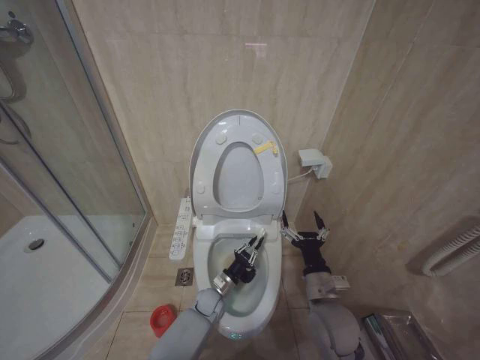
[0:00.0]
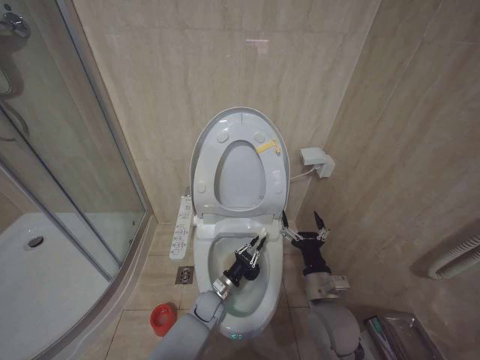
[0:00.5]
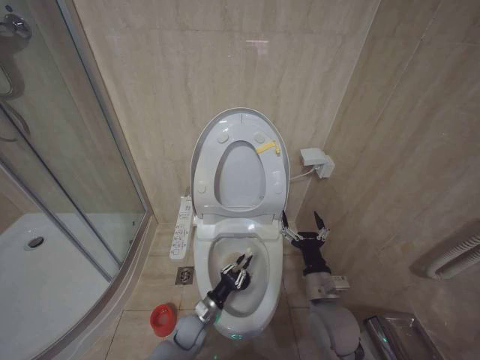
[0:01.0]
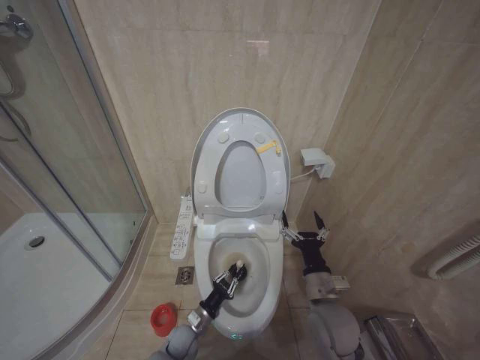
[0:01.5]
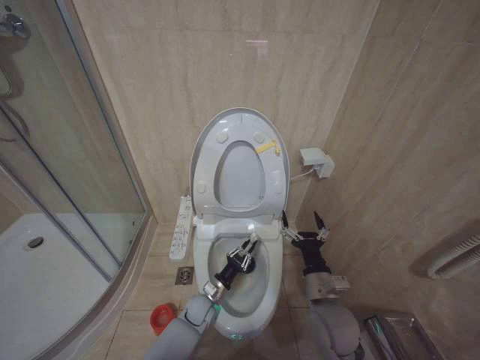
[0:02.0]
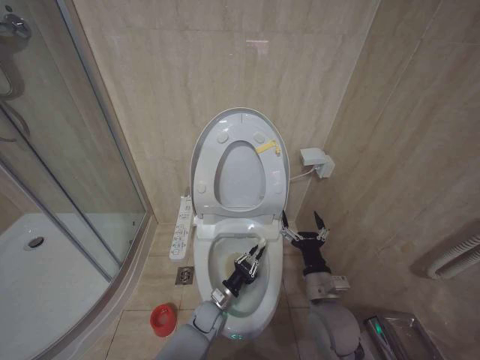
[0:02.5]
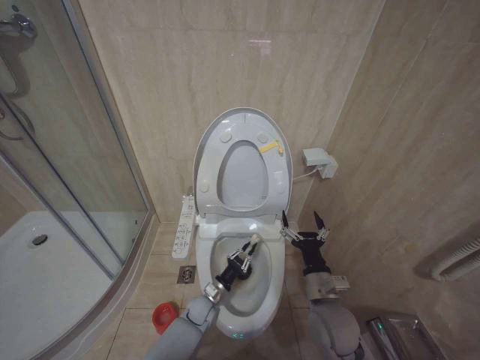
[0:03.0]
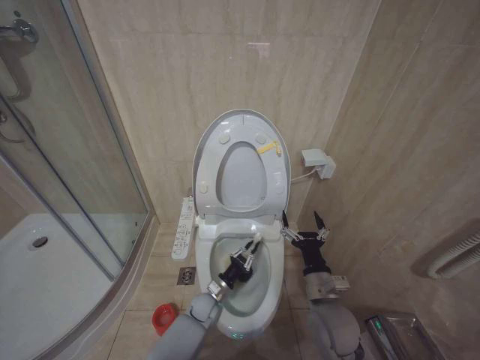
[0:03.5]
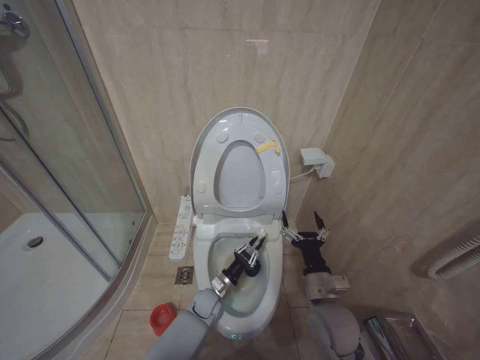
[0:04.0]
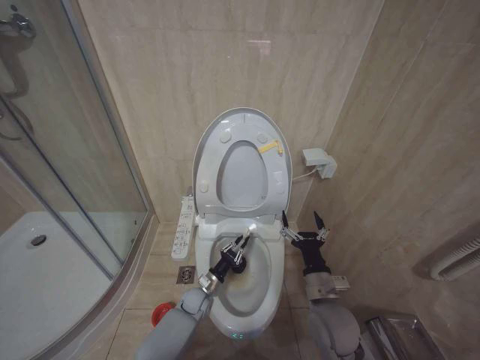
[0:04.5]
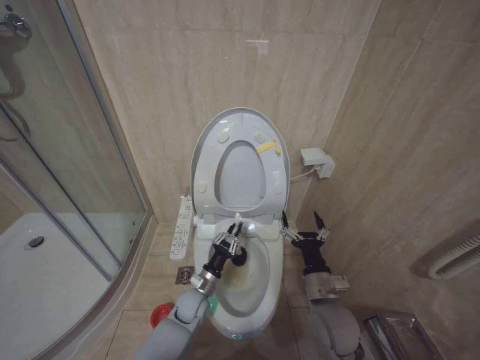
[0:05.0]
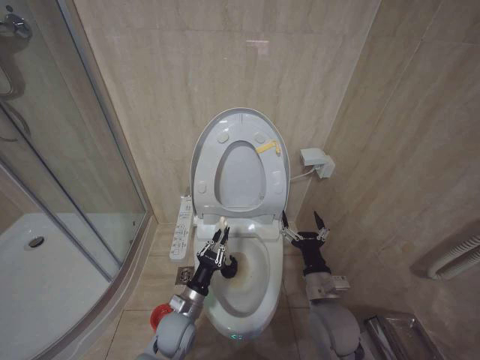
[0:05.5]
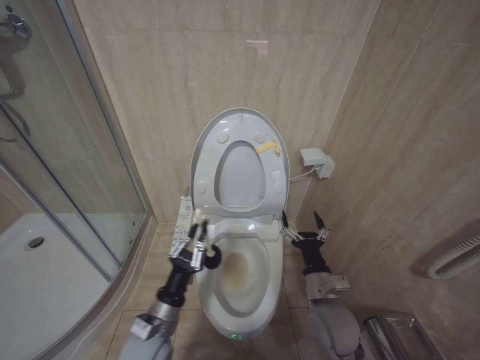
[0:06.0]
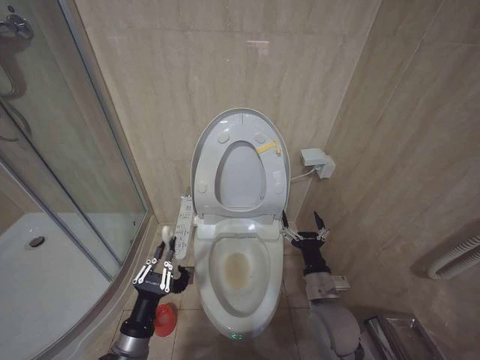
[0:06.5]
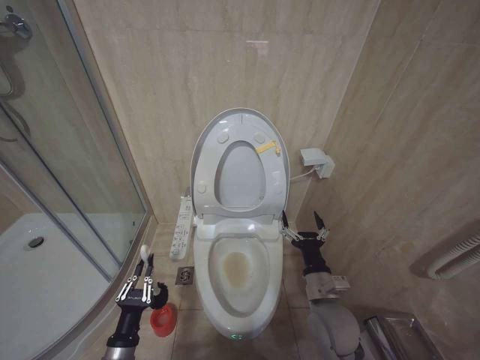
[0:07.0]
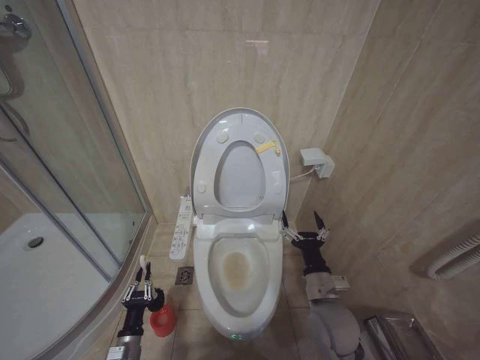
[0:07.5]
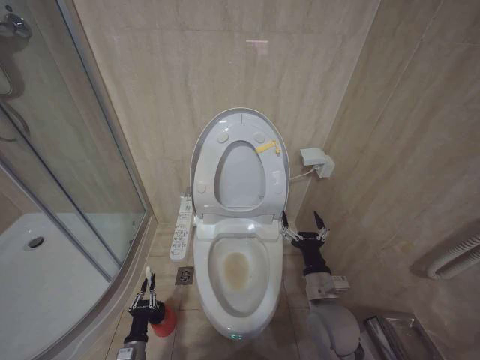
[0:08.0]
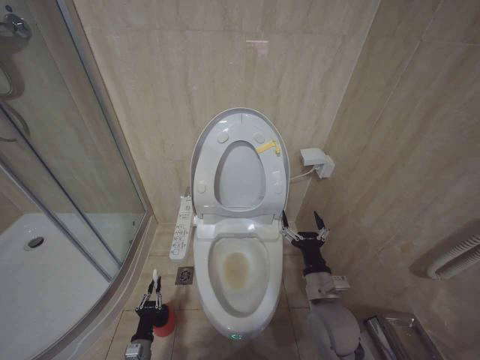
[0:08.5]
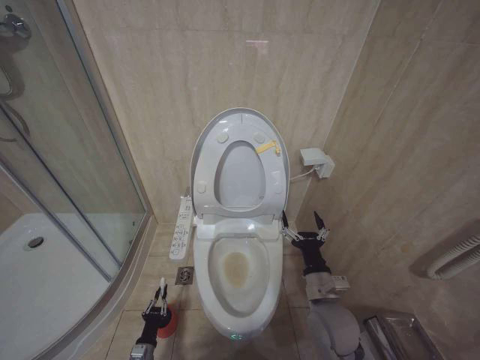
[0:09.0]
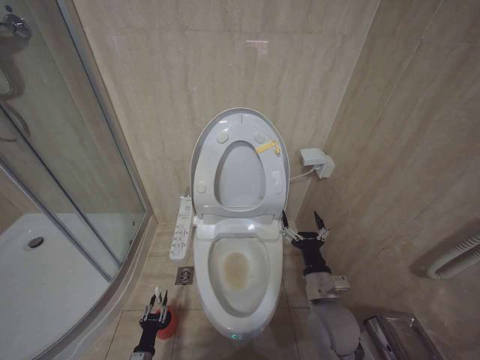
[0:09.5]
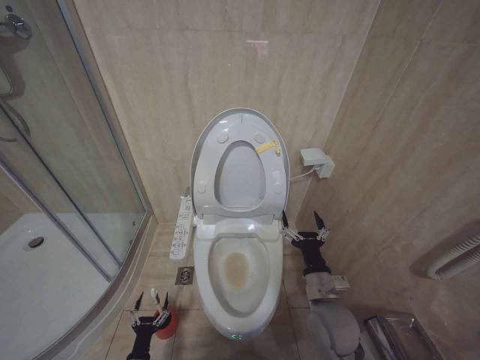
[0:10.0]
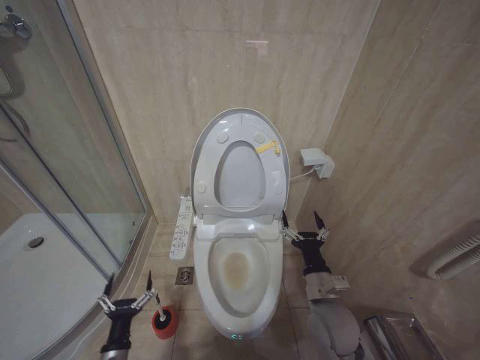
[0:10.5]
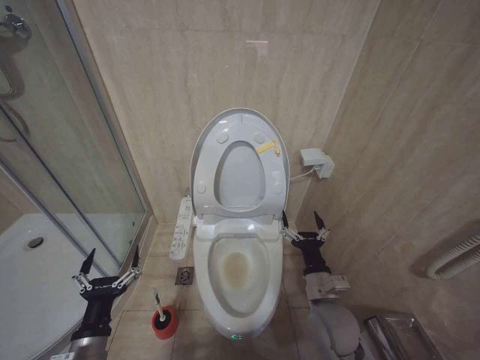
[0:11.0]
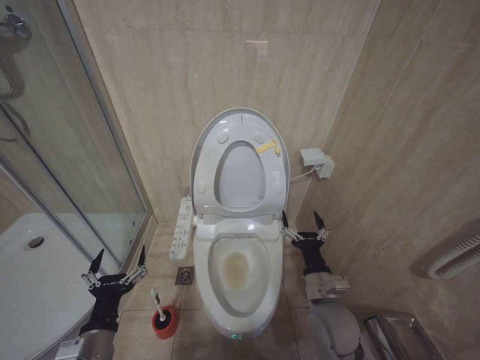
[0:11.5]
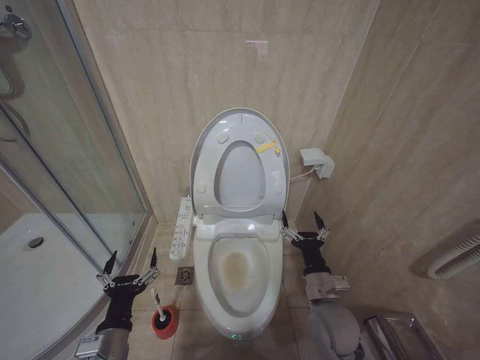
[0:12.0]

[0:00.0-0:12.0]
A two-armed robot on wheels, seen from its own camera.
Task of the whole recording: Open the toilet lid, clean the toilet bowl with a toilet brush, close the toilet lid, and flush.
0:00.0 to 0:02.0: The left gripper reaches approximately 10 cm backward, then returns.
0:02.0 to 0:04.0: The grippers stay close to where they were, moving slightly.
0:04.0 to 0:06.0: The left gripper travels upward, backward and to the left by about 25 cm.
0:06.0 to 0:08.0: The left gripper goes about 25 cm downward and to the left.
0:08.0 to 0:10.0: The left gripper shifts by approximately 5 cm, and opens.
0:10.0 to 0:12.0: The left gripper travels upward by some 30 cm, and opens.

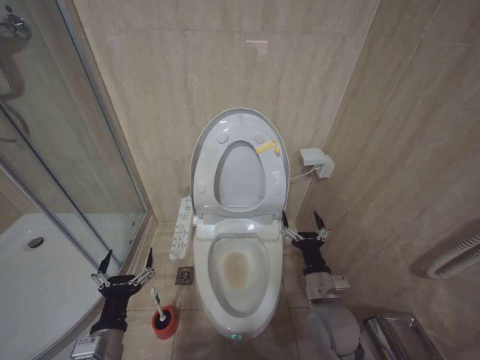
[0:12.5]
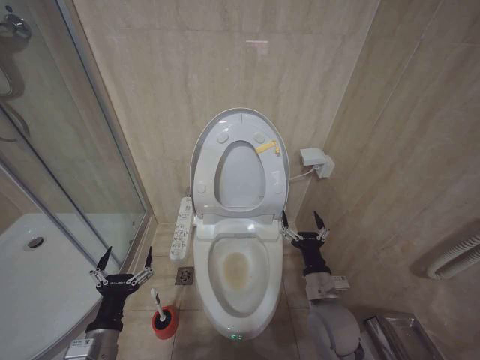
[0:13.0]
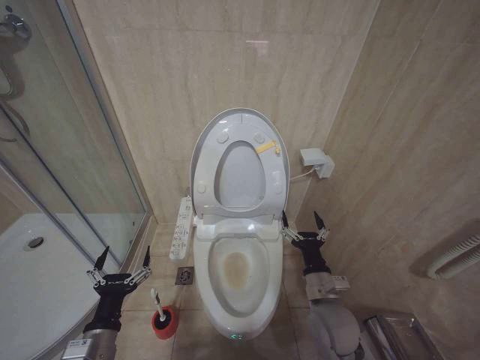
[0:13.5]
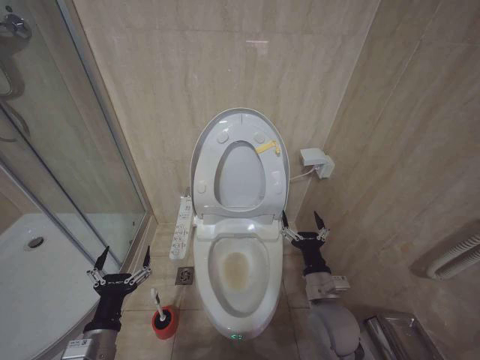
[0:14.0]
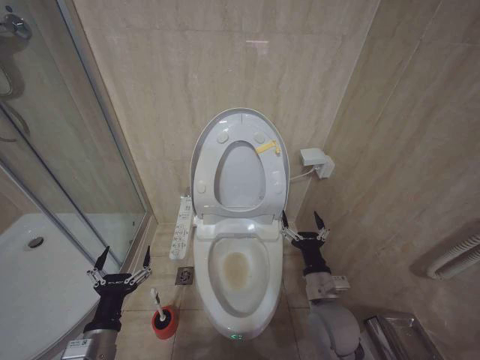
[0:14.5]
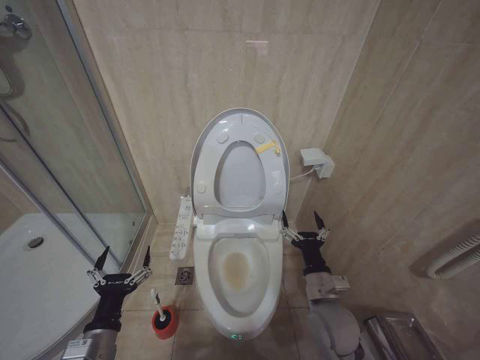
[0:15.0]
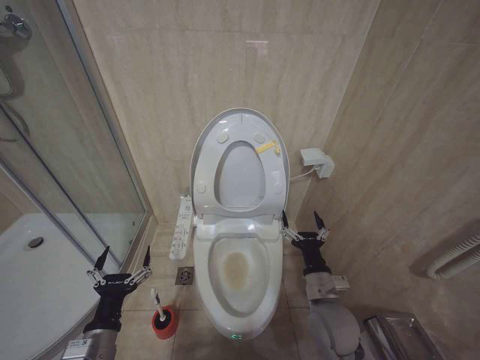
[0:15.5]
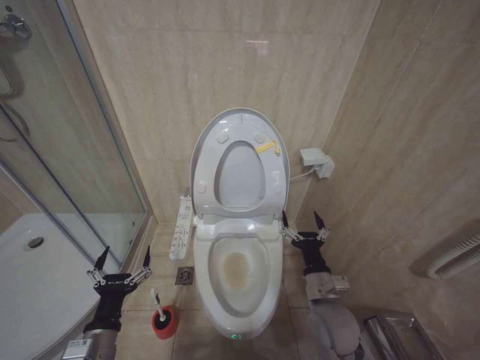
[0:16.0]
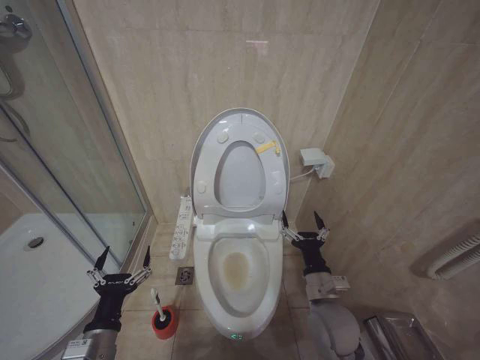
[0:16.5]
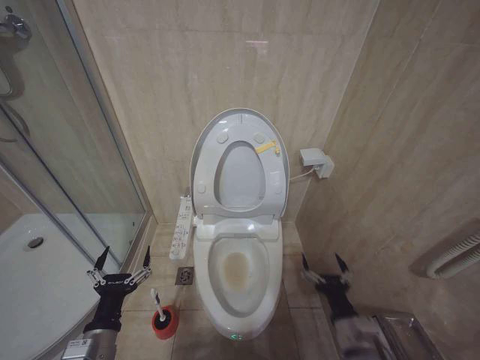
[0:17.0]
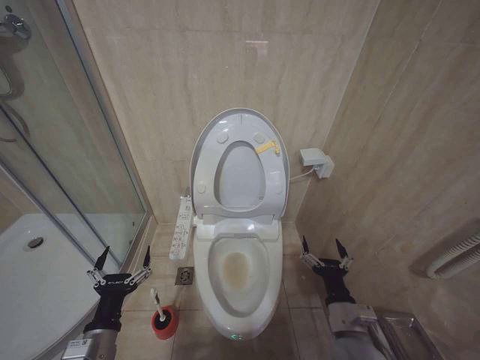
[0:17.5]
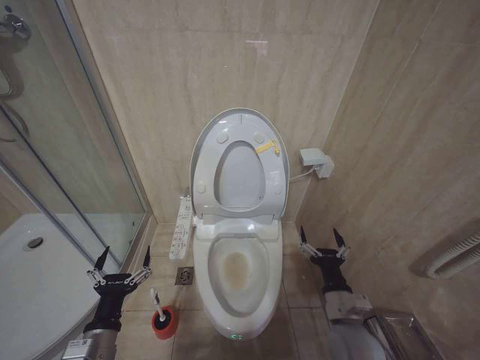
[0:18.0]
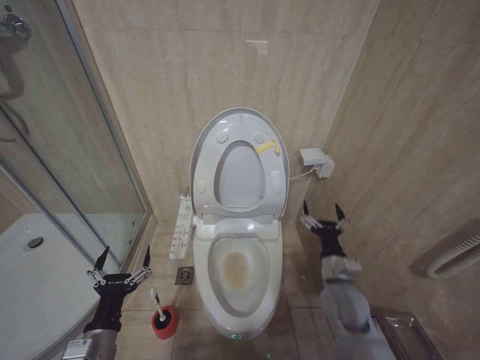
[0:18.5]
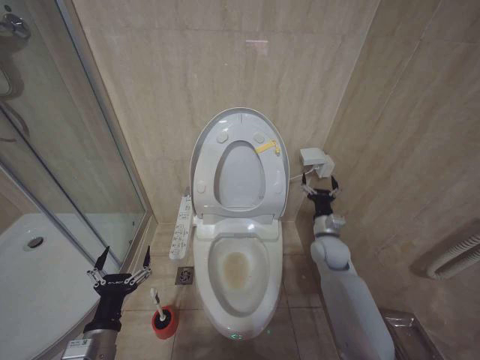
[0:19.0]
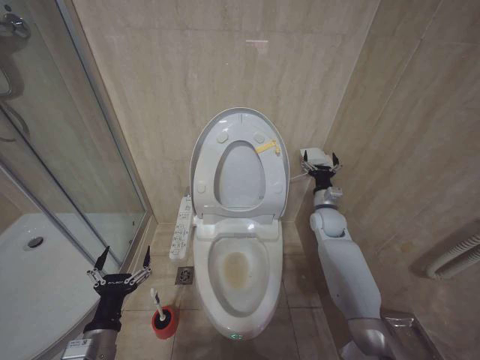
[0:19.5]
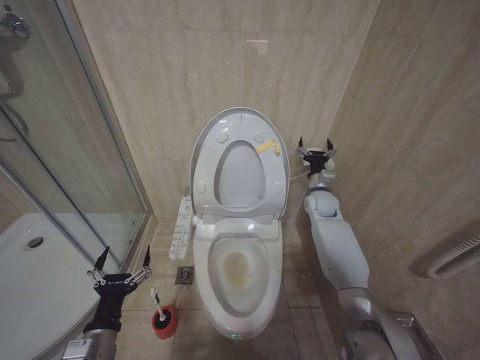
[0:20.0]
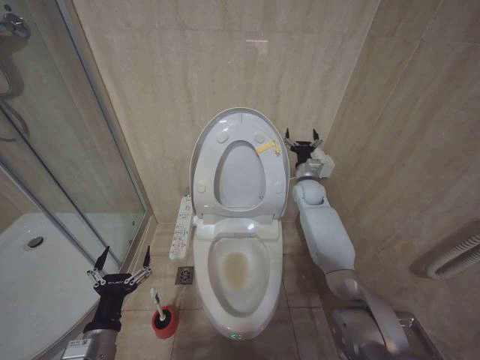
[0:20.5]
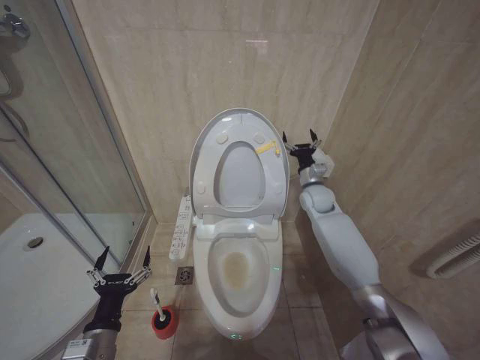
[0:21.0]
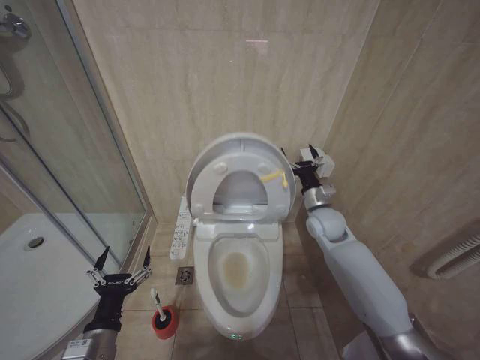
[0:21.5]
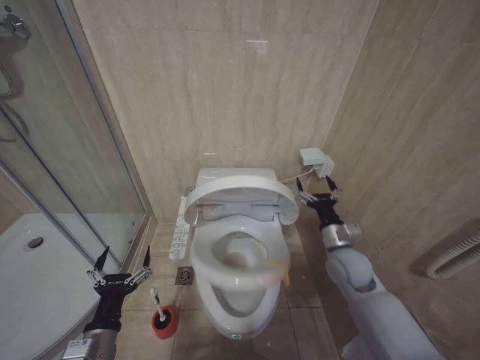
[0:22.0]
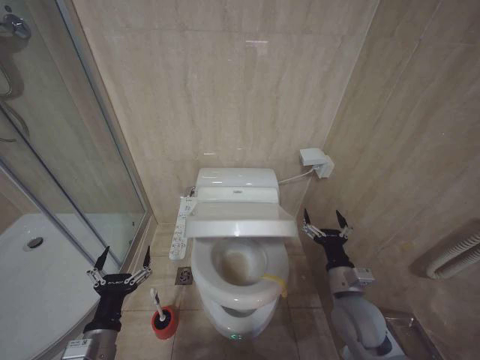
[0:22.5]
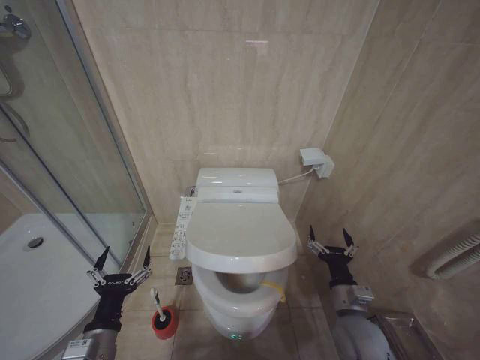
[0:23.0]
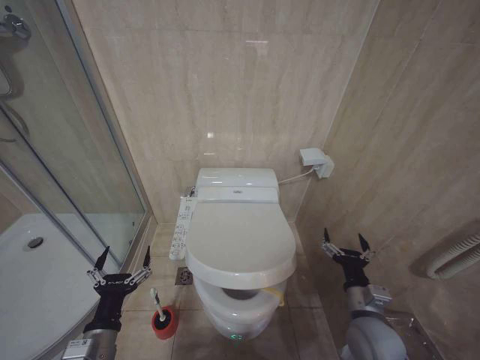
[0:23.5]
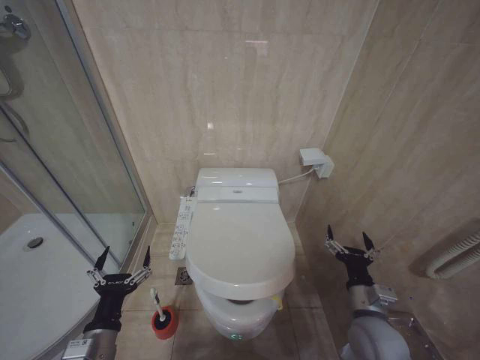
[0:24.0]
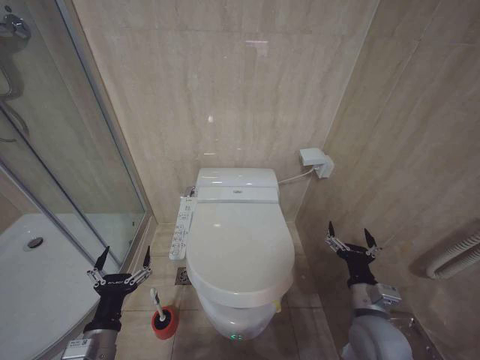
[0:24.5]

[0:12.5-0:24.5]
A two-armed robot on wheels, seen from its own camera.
Task of the whole recording: Open the toilet lid, clean the toilet bowl with a toilet brush, close the toilet lid, and flush.
0:12.5 to 0:14.5: The grippers stay close to where they were, moving slightly.
0:14.5 to 0:16.5: Both grippers stay about where they are.
0:16.5 to 0:18.5: The right gripper moves to the right, about 5 cm, and goes backward and returns, about 10 cm each way.
0:18.5 to 0:20.5: The right gripper shifts some 30 cm forward and upward.
0:20.5 to 0:22.5: The right gripper travels backward by roughly 30 cm.
0:22.5 to 0:24.5: The grippers move only a little.

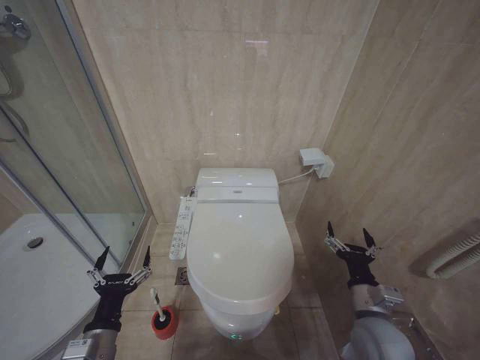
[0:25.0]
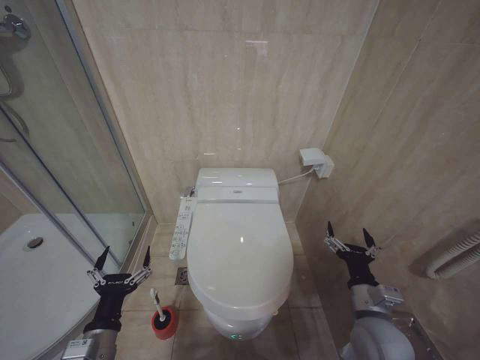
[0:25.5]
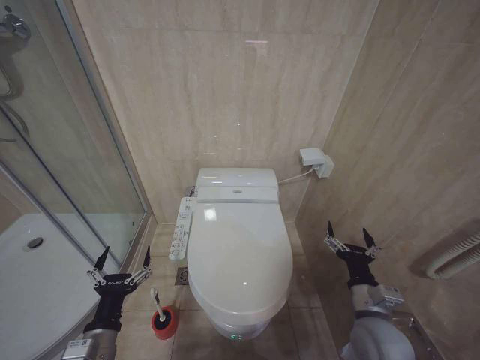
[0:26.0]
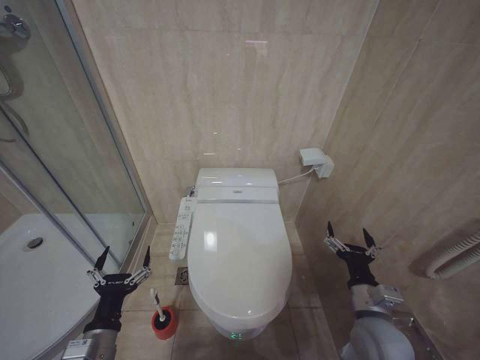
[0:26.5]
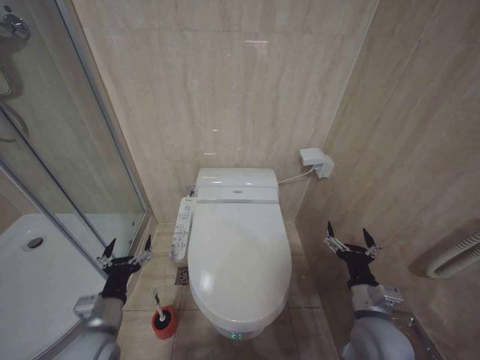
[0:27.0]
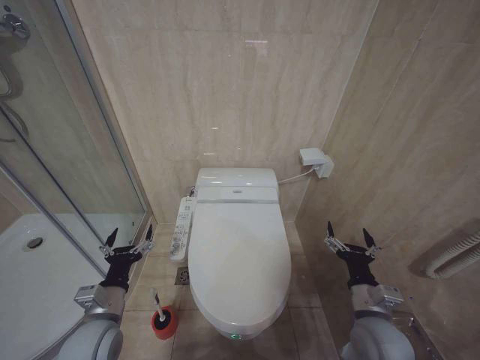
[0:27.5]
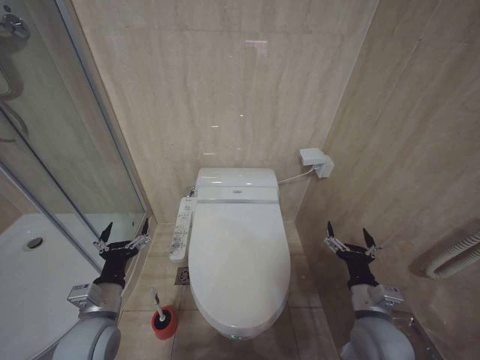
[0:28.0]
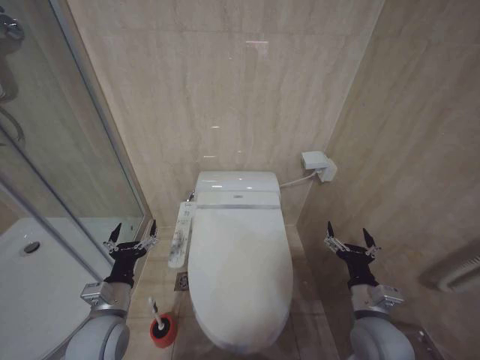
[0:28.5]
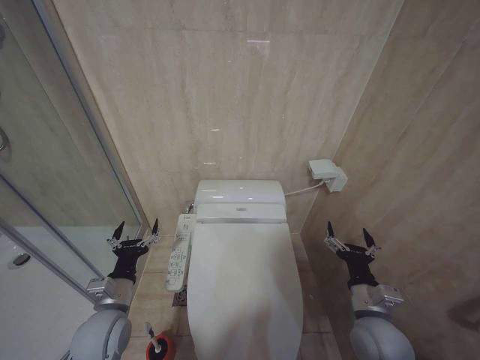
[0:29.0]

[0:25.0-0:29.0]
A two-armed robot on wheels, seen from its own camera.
Task of the whole recording: Open the toilet lid, clean the toilet bowl with a toilet brush, close the toilet lid, and flush.
0:25.0 to 0:27.0: The grippers move only a little.
0:27.0 to 0:29.0: The left gripper is displaced forward by about 5 cm.
